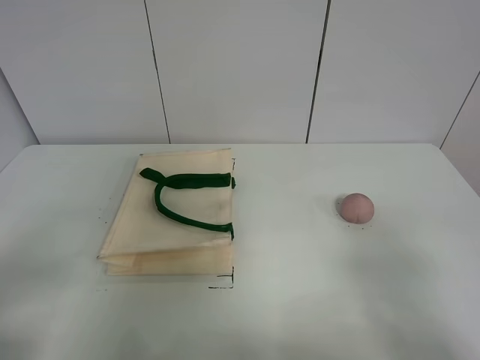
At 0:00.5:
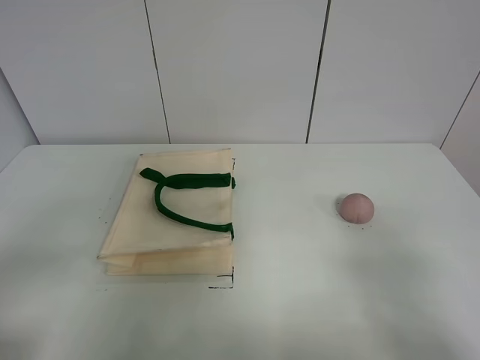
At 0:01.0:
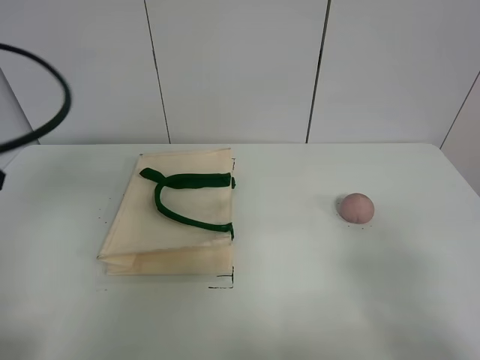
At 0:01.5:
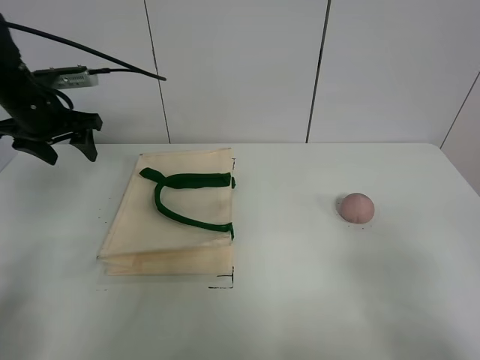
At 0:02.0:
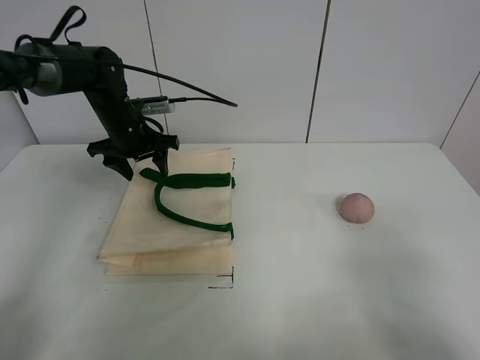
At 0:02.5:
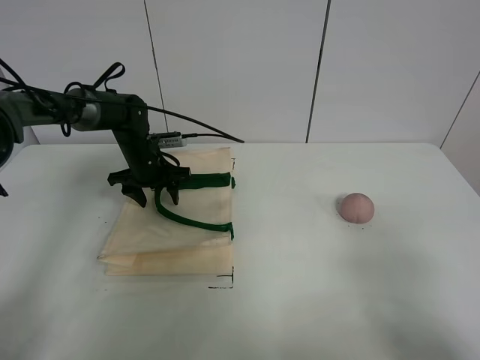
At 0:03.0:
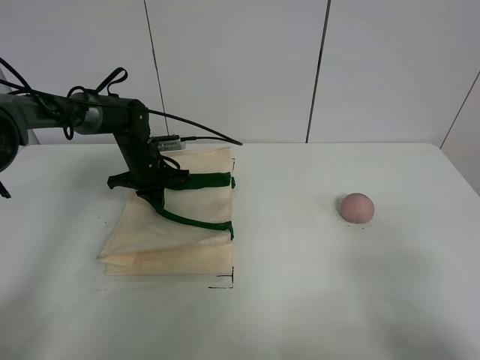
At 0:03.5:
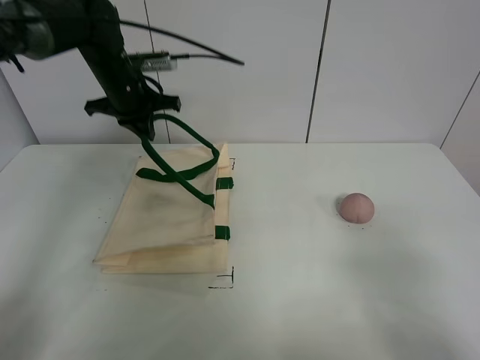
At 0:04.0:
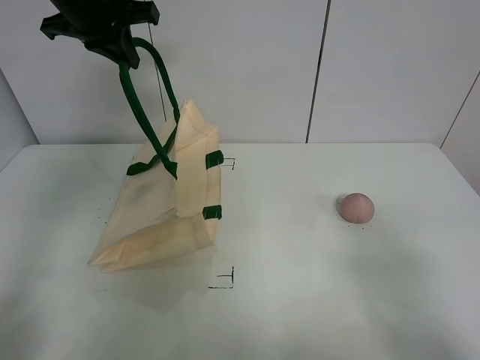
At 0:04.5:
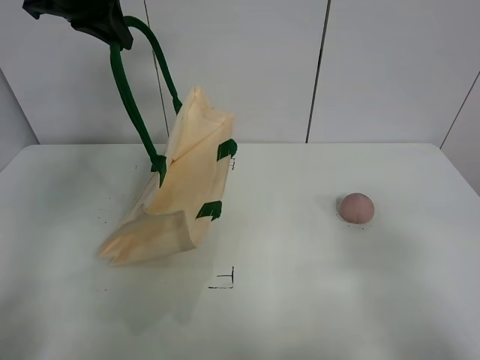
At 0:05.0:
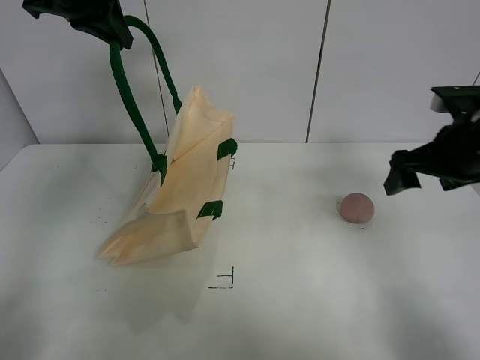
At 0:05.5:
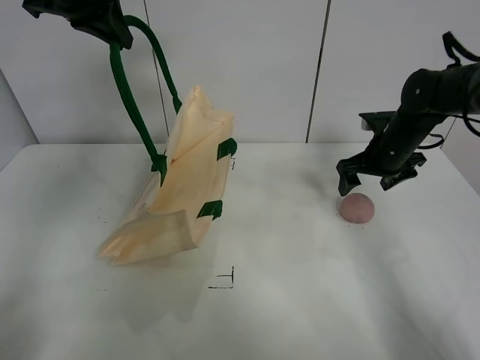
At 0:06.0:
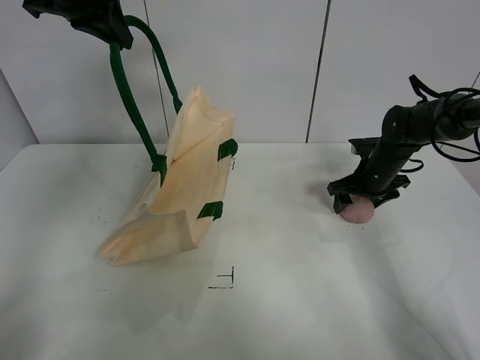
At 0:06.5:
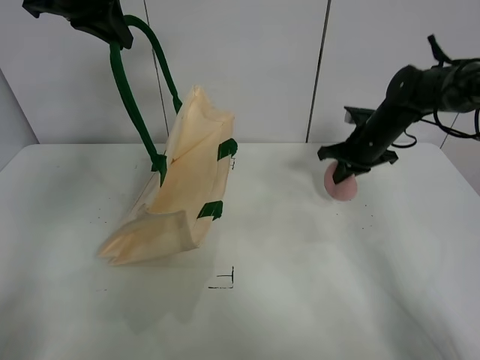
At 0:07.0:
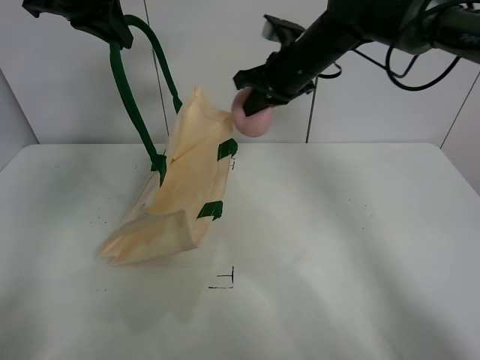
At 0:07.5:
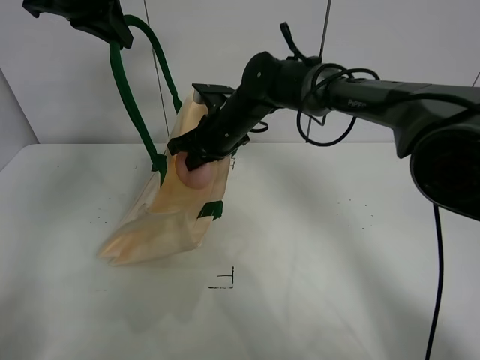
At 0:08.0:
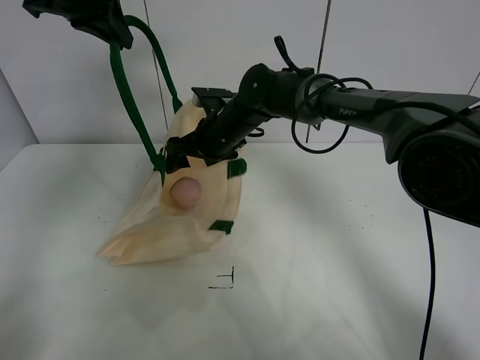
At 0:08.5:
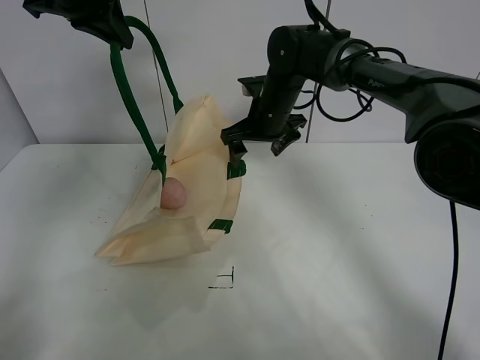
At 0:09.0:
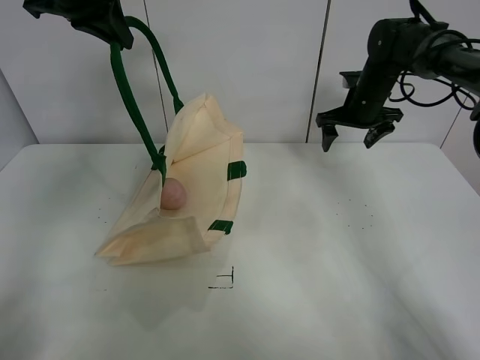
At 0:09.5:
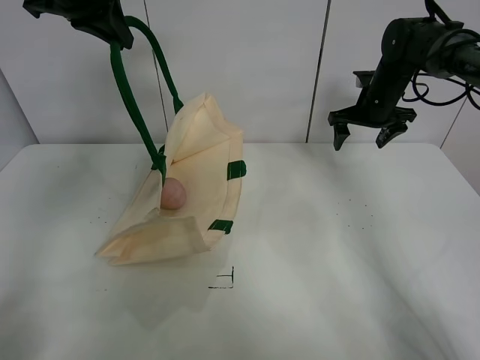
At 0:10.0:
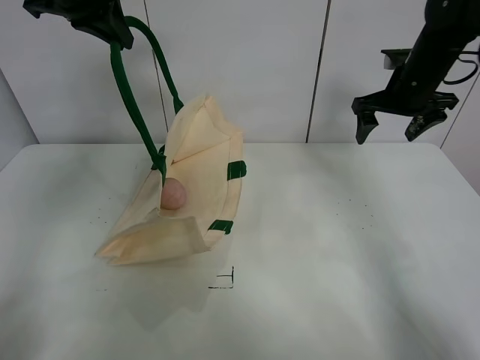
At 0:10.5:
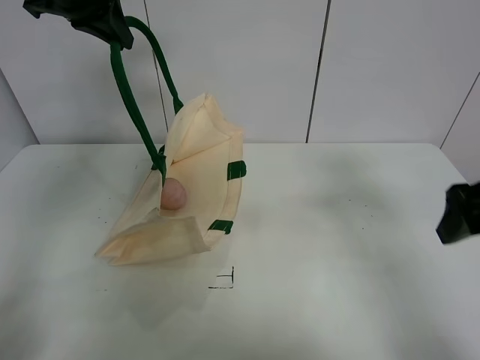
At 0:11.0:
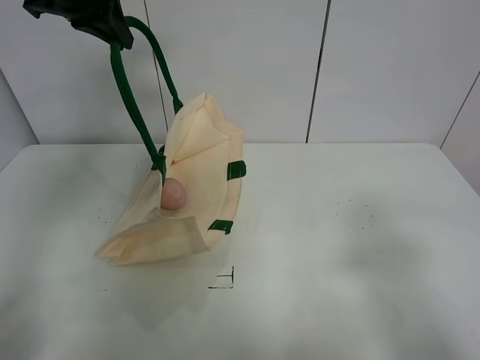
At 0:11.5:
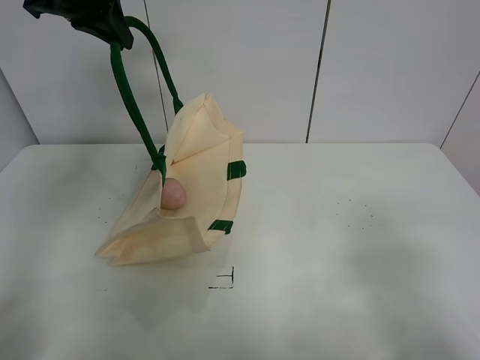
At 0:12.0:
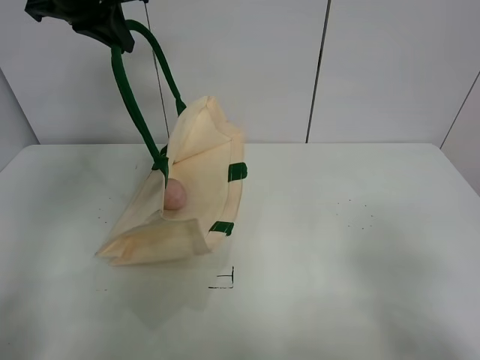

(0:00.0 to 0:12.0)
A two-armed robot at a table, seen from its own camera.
Task of the whole recording: open the white linen bag and put the peach in the bag.
Step, 0:00.0 - 0:04.0: Lift the handbag with left gripper.
Step, 0:04.5 - 0:06.0: Grasp the peach with right gripper.
Step, 0:06.5 - 0:08.0: Place the peach in the handbag with right gripper.
0:00.0 - 0:02.0: The left gripper goes roughly 40 cm forward.
0:02.0 - 0:04.0: The left gripper travels upward by about 20 cm, and closes its fingers.
0:04.0 - 0:06.0: The right gripper travels forward by approximately 40 cm.
0:06.0 - 0:08.0: The right gripper moves to the left, about 30 cm, and closes, then opens again.
0:08.0 - 0:10.0: The right gripper moves to the right, roughly 30 cm.
0:10.0 - 0:12.0: The right gripper moves backward, about 40 cm.

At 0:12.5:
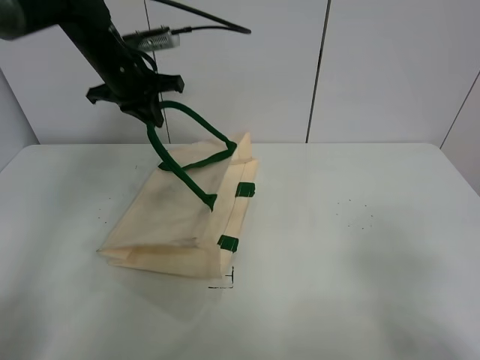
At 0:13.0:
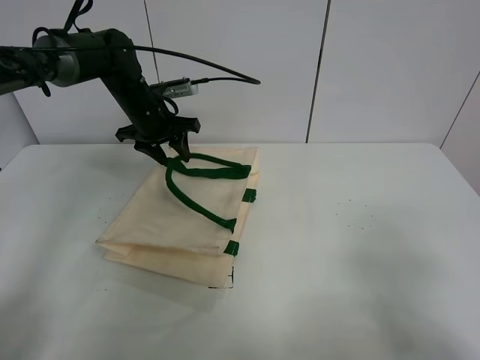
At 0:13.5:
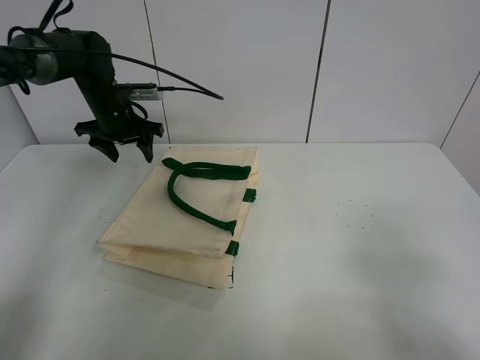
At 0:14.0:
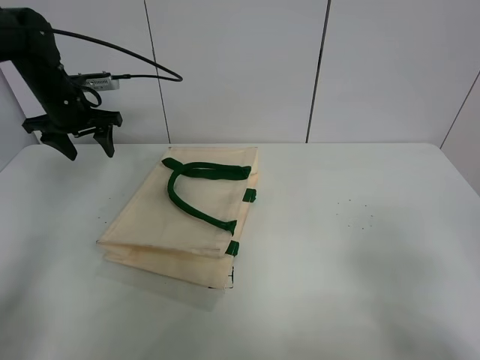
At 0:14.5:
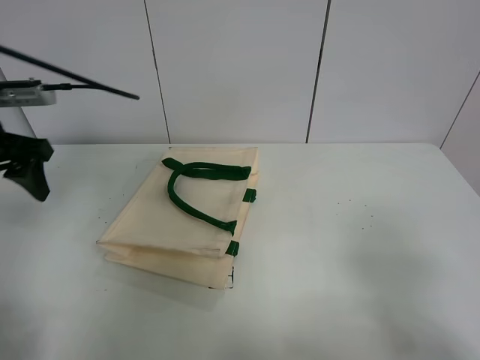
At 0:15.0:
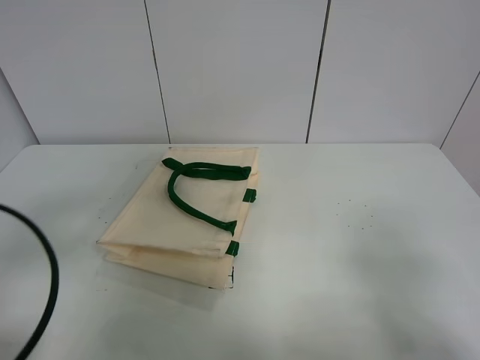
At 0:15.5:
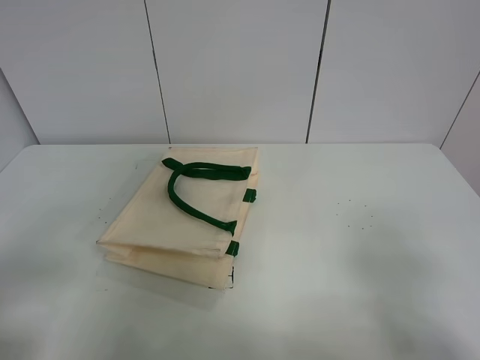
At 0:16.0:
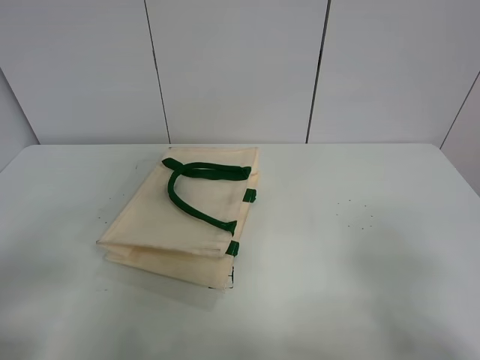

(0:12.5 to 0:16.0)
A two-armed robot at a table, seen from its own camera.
Task of the whole recording: open the white linen bag and put the peach in the bag.
0:12.5 - 0:14.5: The left gripper shifts approximately 20 cm backward and to the left, and opens up.
0:14.5 - 0:16.0: The left gripper goes about 25 cm backward.
